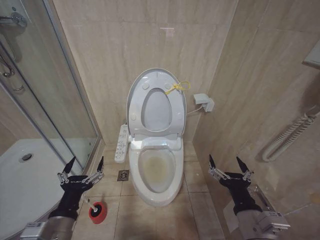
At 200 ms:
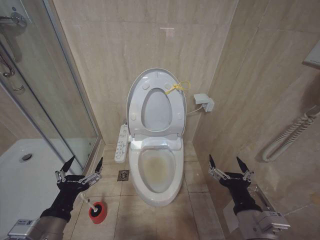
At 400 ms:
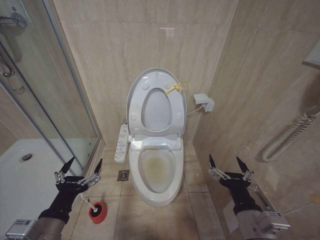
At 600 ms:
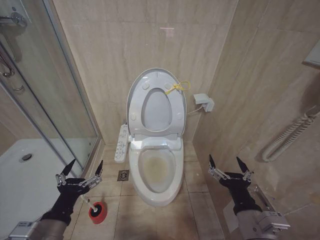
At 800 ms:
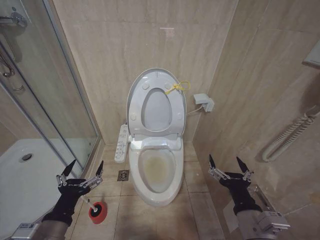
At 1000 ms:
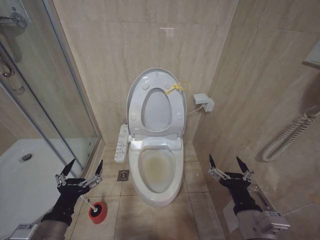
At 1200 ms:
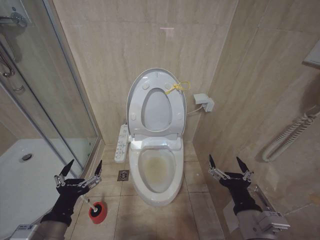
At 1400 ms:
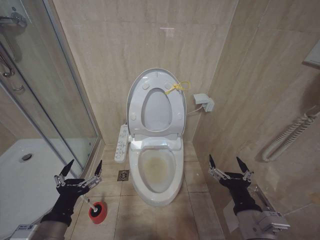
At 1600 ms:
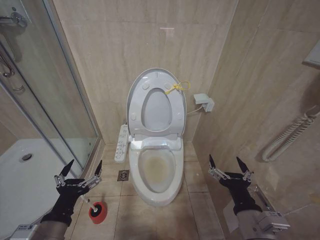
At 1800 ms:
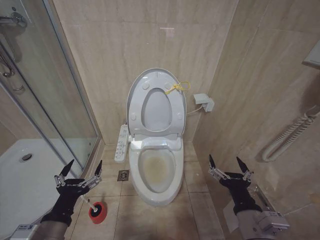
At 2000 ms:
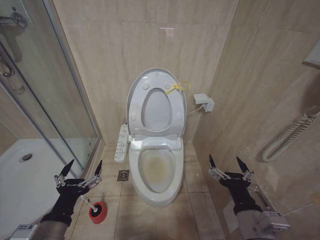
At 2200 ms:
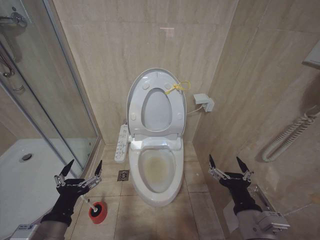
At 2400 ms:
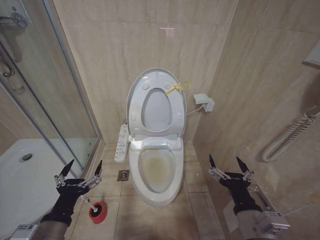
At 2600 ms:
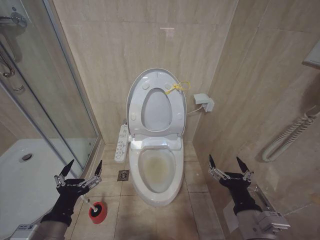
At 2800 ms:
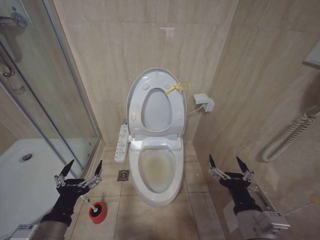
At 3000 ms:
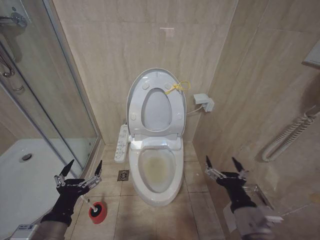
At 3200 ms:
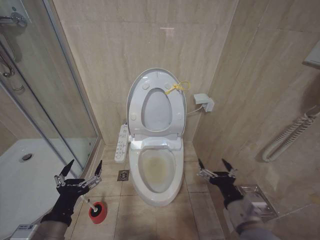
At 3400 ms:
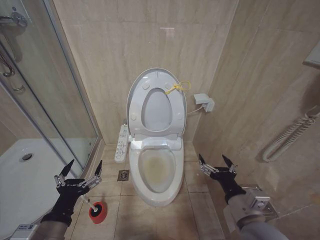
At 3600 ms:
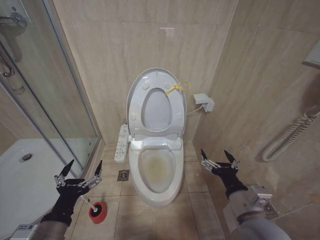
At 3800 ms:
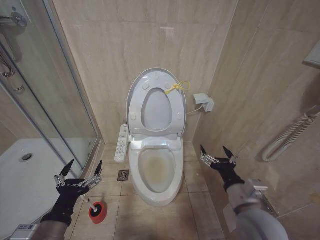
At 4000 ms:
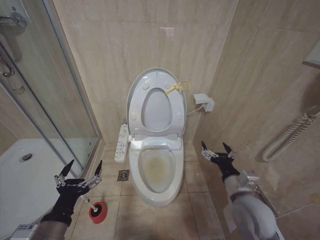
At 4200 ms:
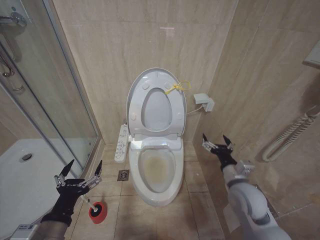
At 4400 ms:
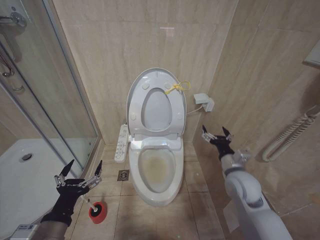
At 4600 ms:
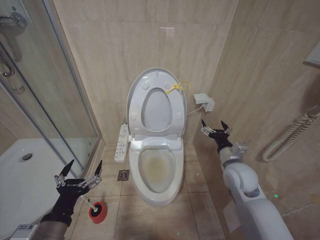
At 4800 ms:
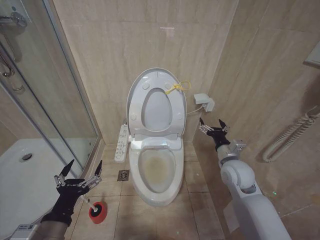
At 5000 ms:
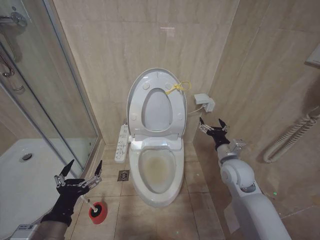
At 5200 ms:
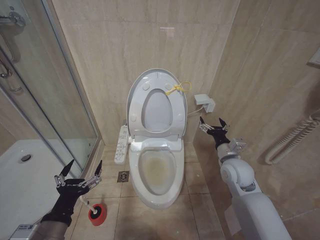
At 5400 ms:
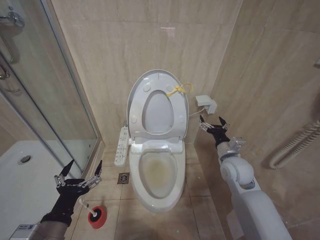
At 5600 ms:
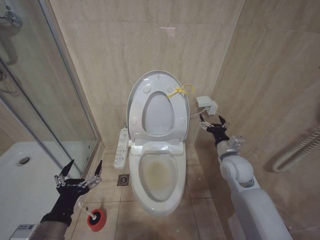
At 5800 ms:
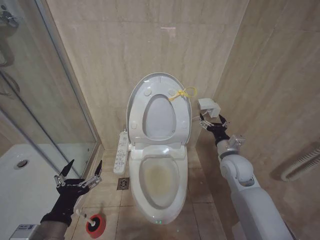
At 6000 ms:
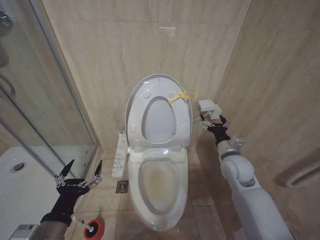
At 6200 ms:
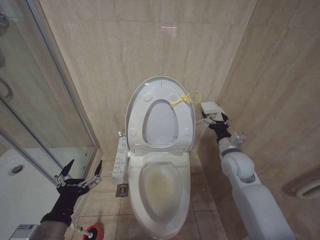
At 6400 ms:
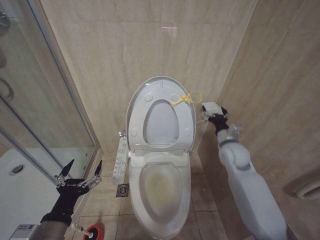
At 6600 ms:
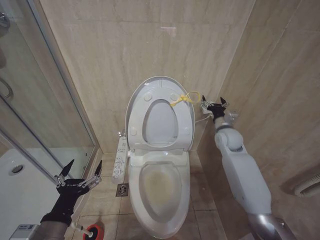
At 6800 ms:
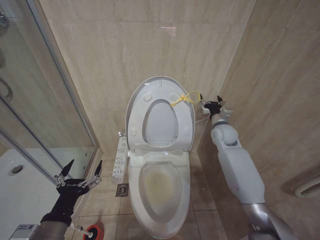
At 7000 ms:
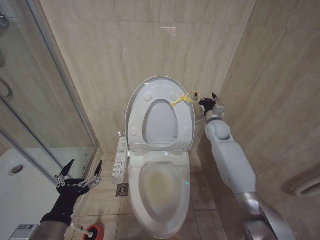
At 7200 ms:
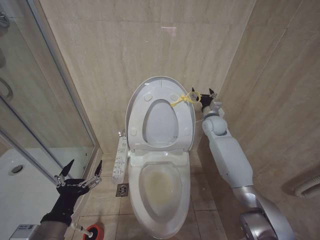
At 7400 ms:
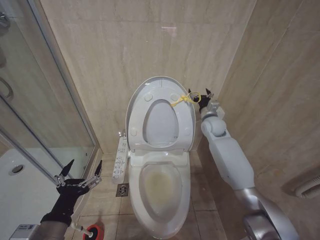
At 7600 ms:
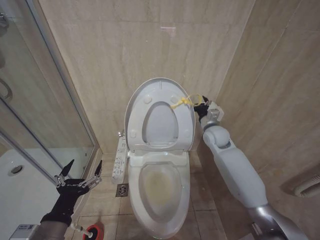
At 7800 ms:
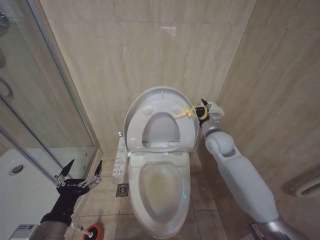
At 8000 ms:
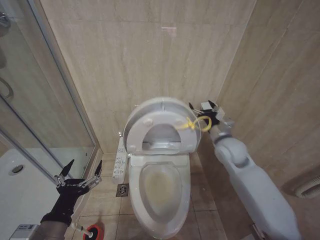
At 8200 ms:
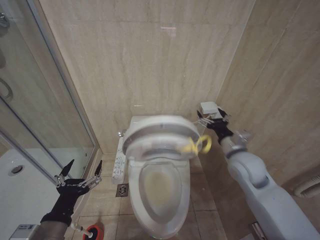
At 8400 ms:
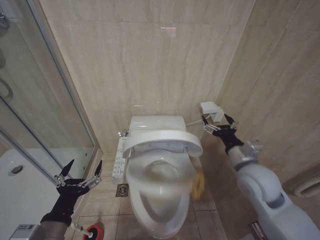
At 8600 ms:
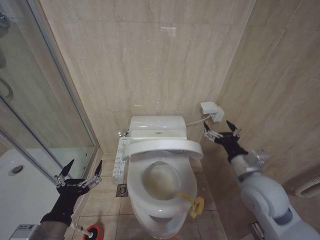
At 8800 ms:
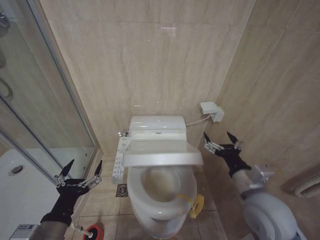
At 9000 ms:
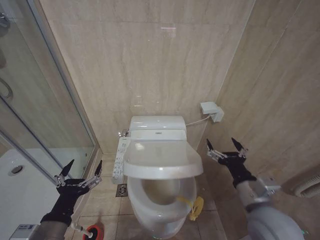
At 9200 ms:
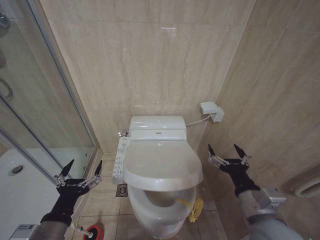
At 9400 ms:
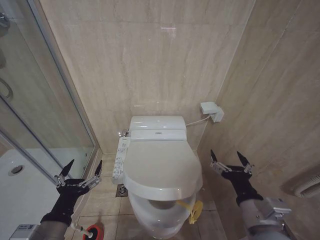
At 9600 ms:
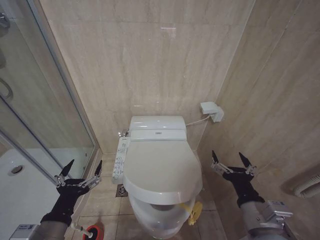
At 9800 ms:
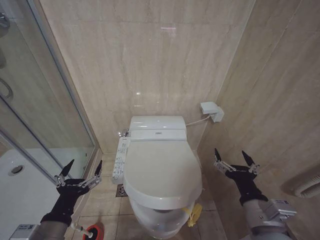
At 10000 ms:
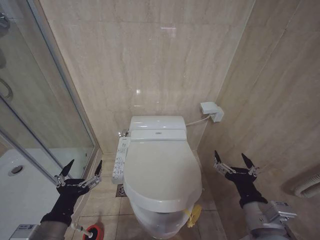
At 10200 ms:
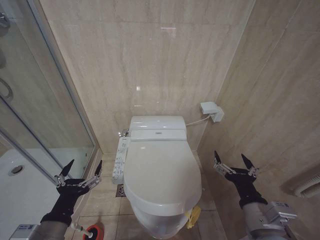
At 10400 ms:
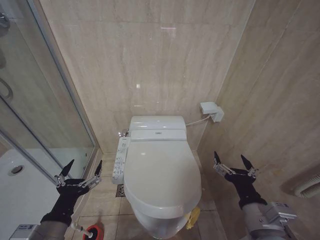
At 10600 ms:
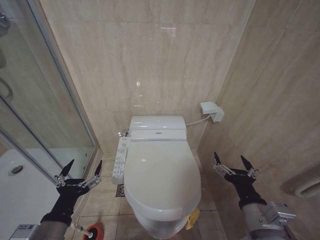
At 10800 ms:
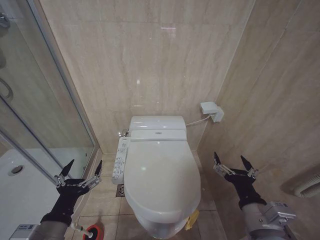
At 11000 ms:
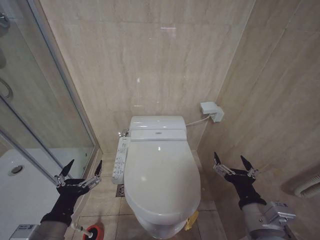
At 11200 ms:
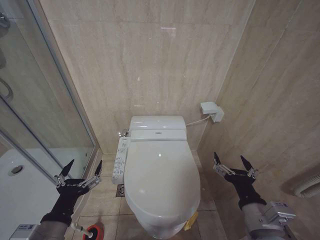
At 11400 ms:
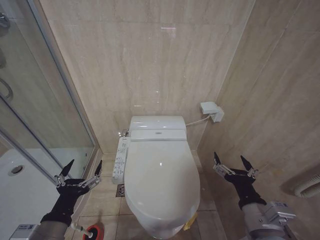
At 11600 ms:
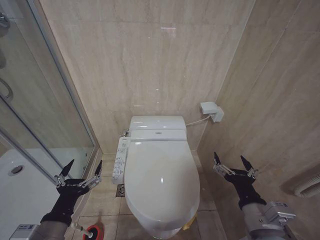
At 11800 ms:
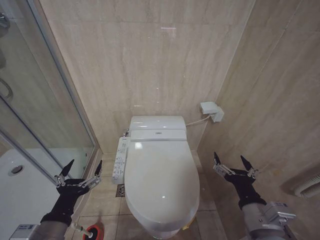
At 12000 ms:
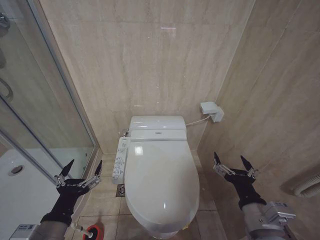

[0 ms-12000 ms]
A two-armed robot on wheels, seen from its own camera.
Task of the whole recording: Open the toilet lid, clean the toilet bowl with a toilet brush, close the toilet lid, and flush.
0 ms to 1600 ms: The grippers make only small movements.
1600 ms to 3000 ms: The two grippers keep their place.
3000 ms to 4400 ms: The right gripper heads forward, covering about 15 cm.
4400 ms to 6000 ms: The right gripper is displaced forward by about 5 cm.
6000 ms to 7600 ms: The right gripper is displaced forward by some 15 cm.
7600 ms to 9000 ms: The right gripper travels backward by roughly 30 cm.
9000 ms to 10400 ms: The right gripper goes about 5 cm backward.
10400 ms to 12000 ms: Neither gripper changes place.

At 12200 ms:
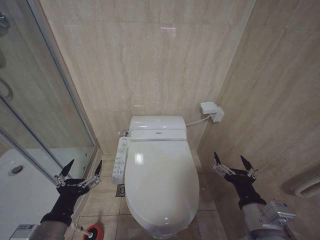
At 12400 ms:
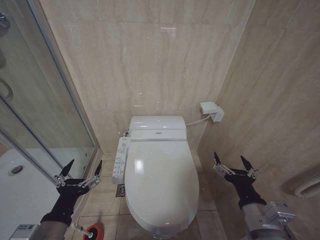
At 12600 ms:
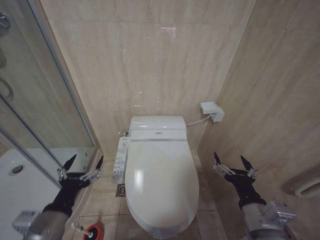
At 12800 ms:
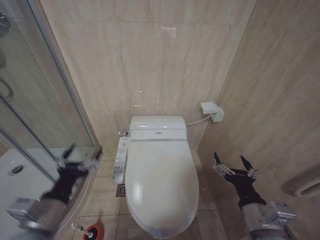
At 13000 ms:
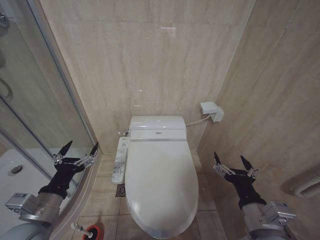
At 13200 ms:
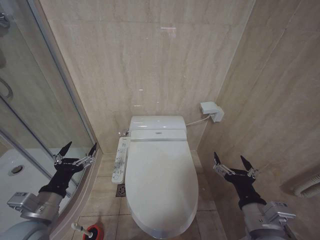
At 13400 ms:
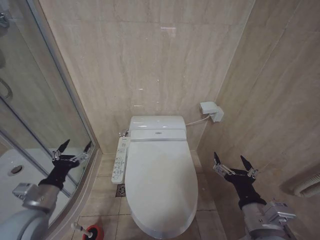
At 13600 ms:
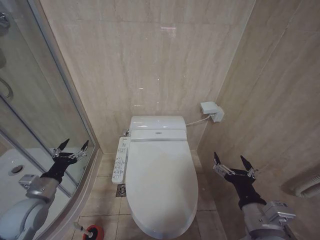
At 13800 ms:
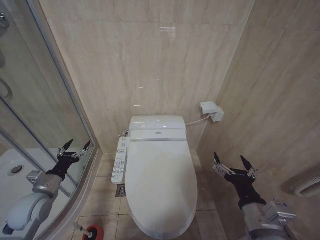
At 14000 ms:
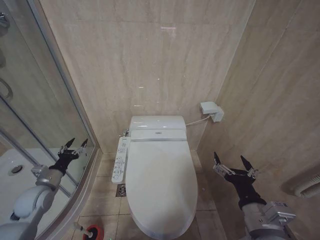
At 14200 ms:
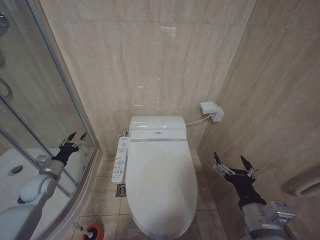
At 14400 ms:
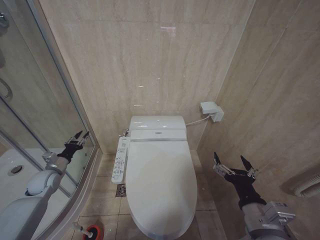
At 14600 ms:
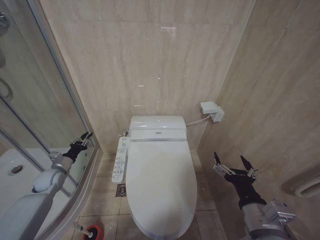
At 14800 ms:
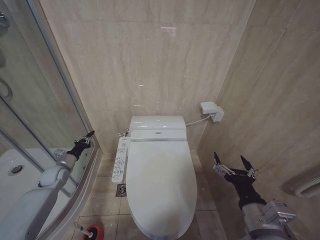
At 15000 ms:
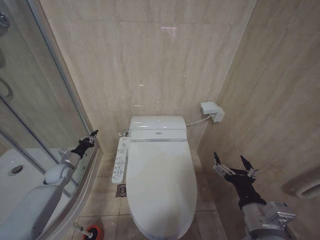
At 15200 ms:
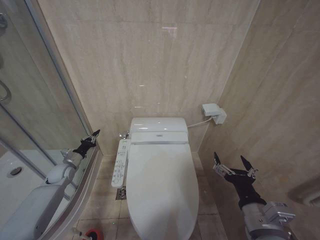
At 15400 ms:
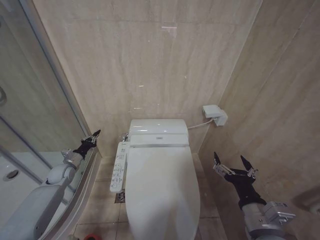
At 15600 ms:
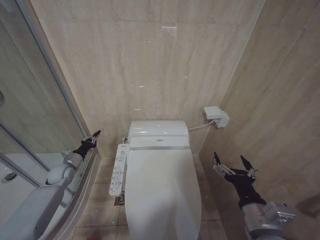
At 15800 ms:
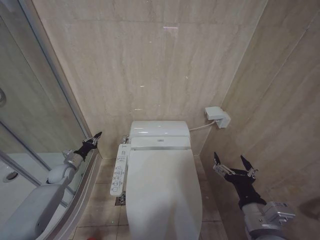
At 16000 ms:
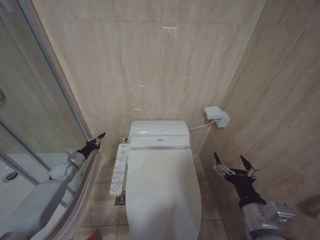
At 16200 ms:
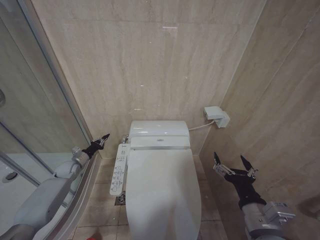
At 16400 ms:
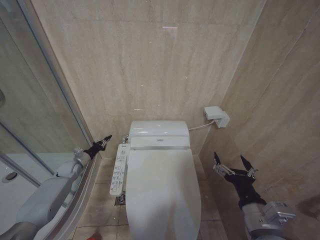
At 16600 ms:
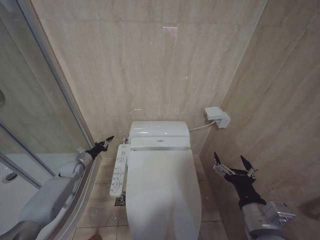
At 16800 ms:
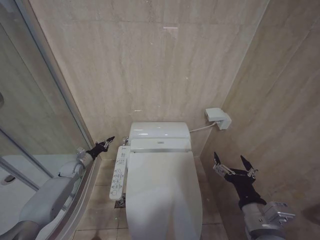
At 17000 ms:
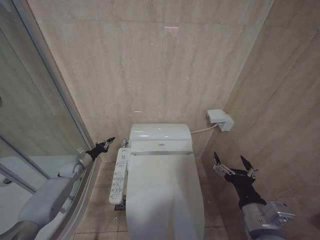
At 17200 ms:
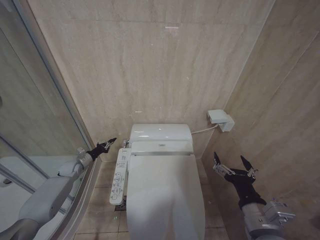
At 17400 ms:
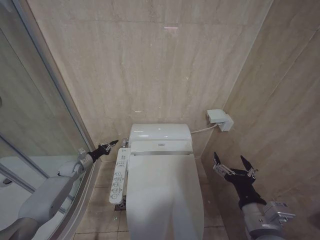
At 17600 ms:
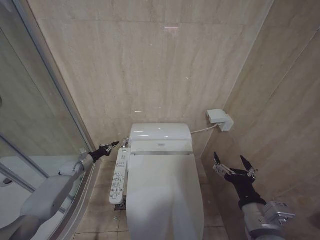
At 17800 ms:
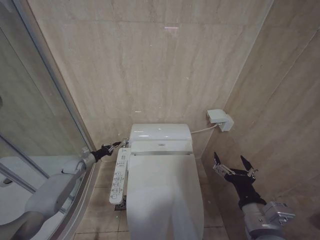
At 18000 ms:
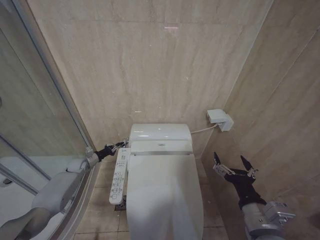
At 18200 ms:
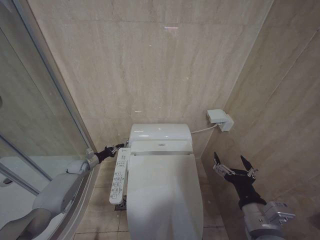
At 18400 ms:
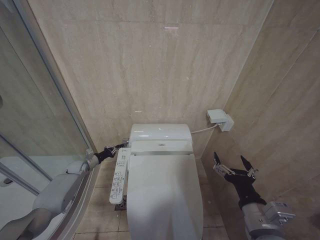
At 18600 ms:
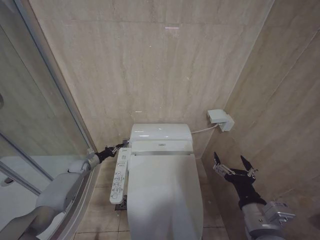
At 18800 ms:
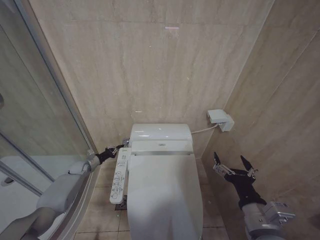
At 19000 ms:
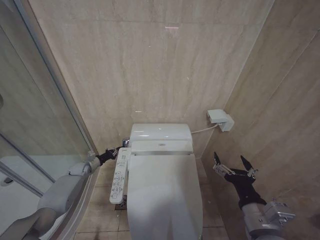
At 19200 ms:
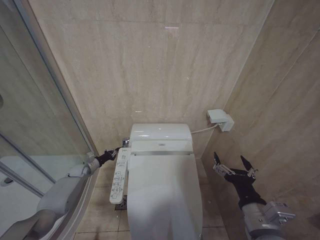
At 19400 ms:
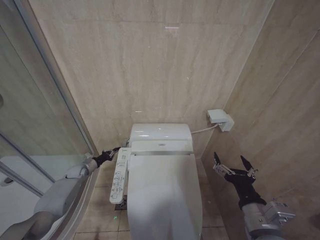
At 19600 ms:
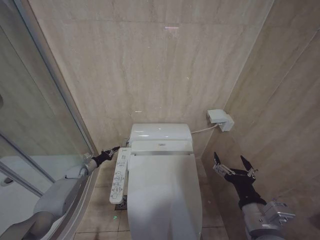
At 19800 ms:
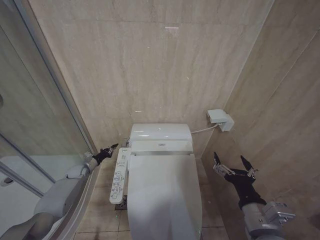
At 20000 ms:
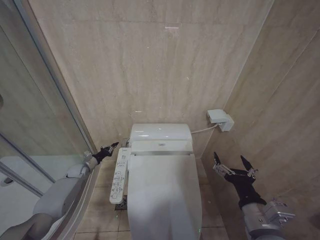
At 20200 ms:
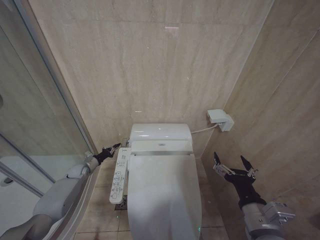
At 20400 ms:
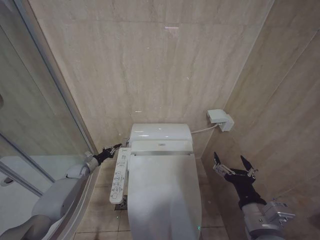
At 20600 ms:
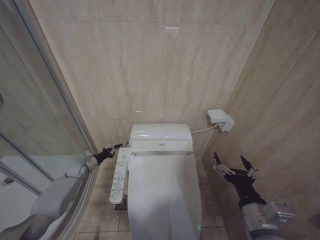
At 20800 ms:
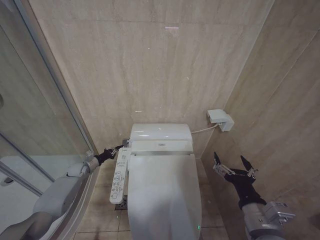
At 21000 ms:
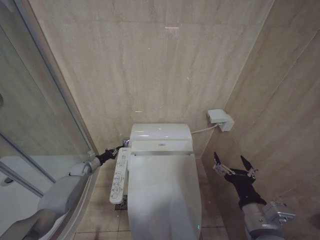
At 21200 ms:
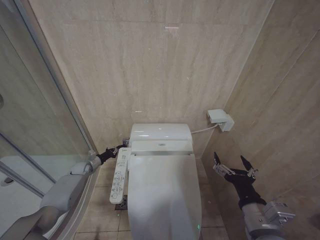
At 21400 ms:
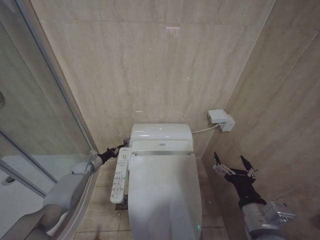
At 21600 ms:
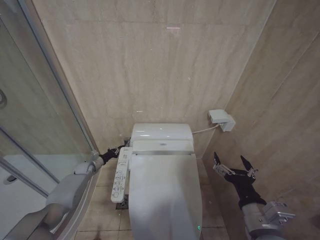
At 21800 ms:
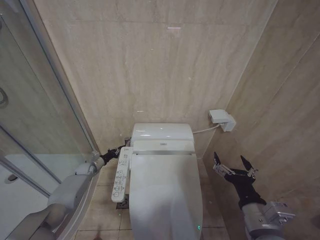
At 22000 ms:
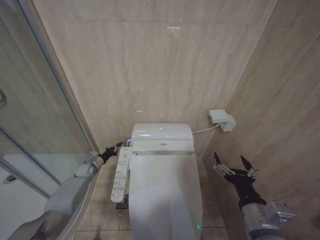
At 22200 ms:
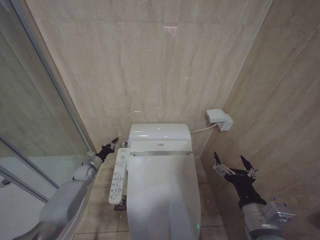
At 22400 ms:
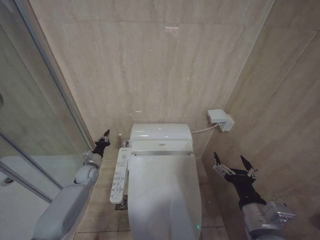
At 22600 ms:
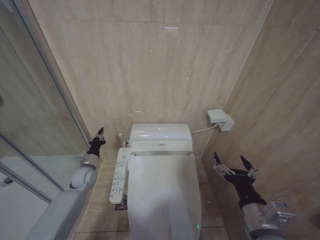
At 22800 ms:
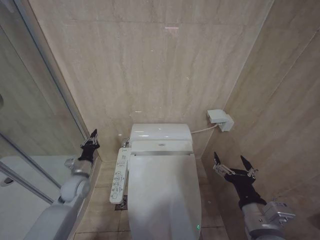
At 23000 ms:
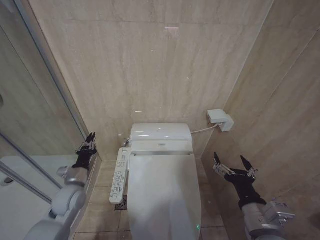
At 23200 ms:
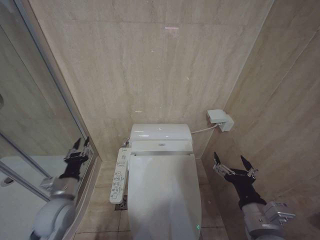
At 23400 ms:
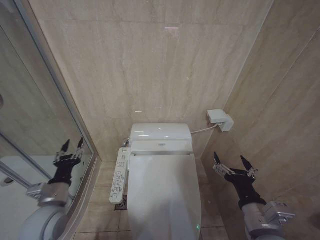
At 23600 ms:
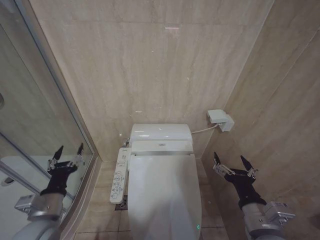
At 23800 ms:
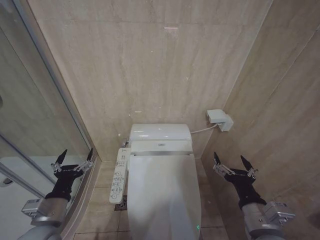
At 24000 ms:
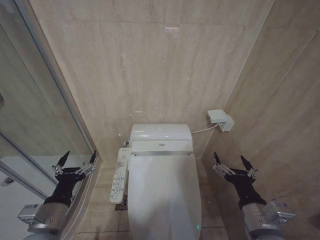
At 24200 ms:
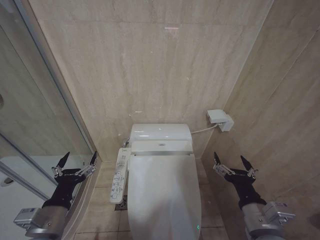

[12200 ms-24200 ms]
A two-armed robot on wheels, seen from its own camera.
Task of the whole recording: Open the toilet lid, clean the toilet bowl with a toilet brush, close the toilet lid, and flush.
12200 ms to 13800 ms: The left gripper shifts approximately 20 cm forward and to the left.
13800 ms to 15200 ms: The left gripper shifts about 20 cm forward and downward, and closes its fingers.
15200 ms to 16600 ms: The left gripper shifts by approximately 5 cm.
16600 ms to 21200 ms: The grippers stay close to where they were, moving slightly.
21200 ms to 22600 ms: The left gripper shifts approximately 10 cm to the right, backward and upward.
22600 ms to 24200 ms: The left gripper travels backward and upward by about 30 cm, and opens.
